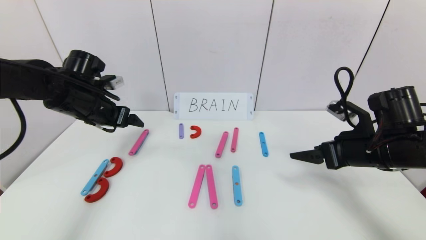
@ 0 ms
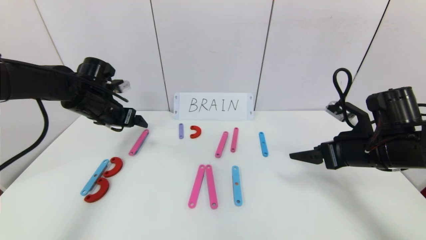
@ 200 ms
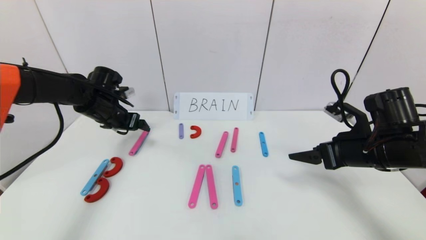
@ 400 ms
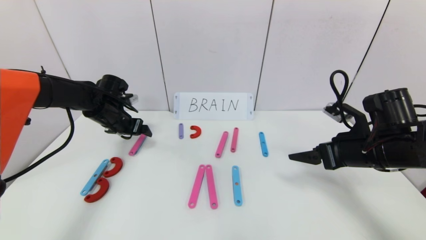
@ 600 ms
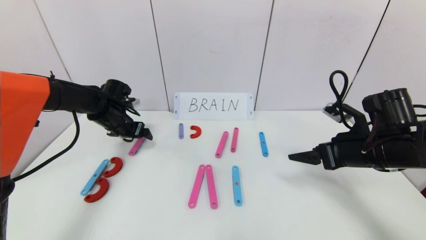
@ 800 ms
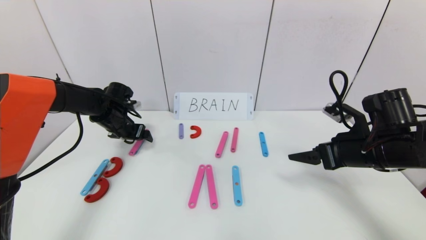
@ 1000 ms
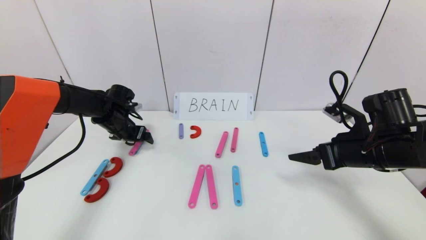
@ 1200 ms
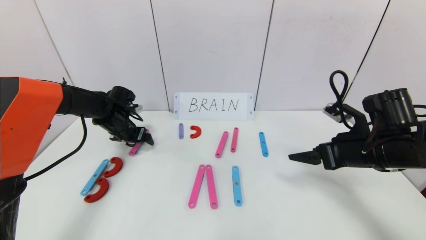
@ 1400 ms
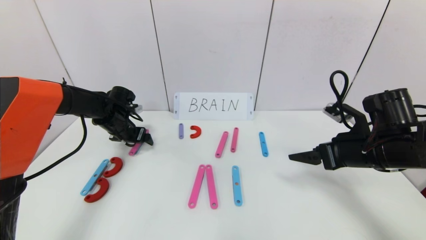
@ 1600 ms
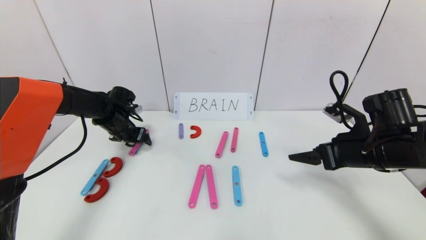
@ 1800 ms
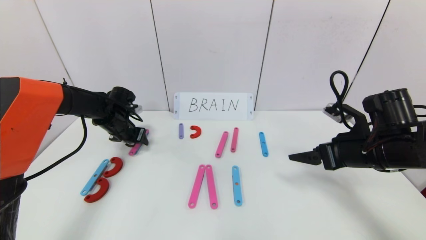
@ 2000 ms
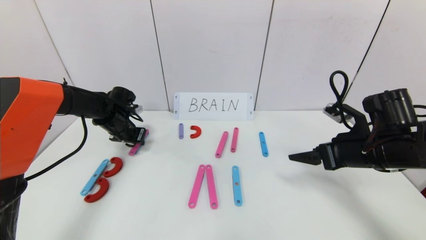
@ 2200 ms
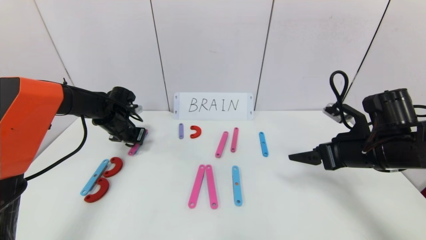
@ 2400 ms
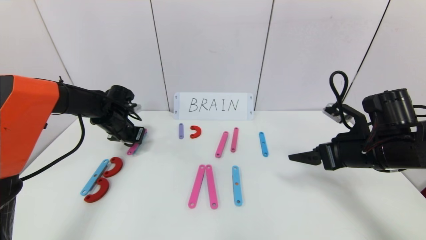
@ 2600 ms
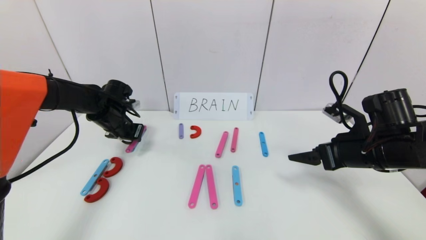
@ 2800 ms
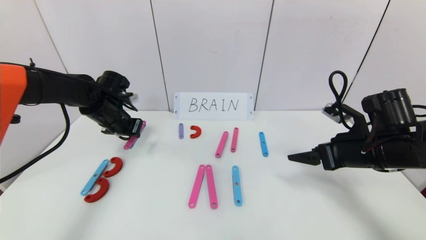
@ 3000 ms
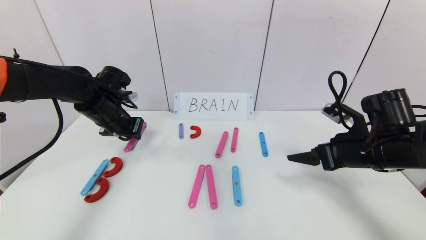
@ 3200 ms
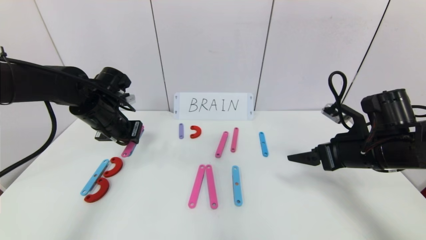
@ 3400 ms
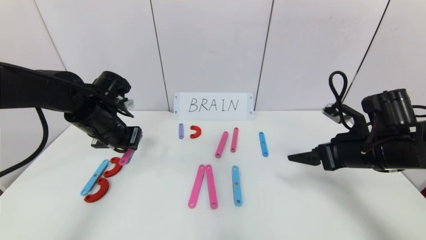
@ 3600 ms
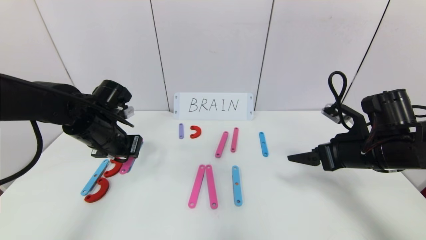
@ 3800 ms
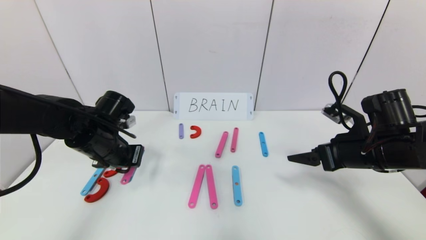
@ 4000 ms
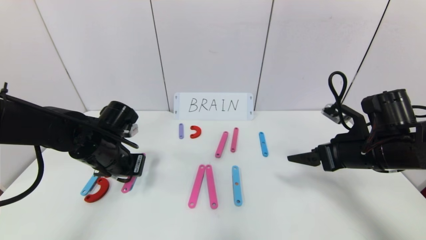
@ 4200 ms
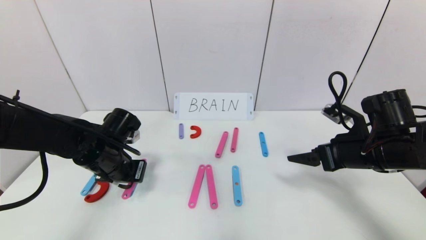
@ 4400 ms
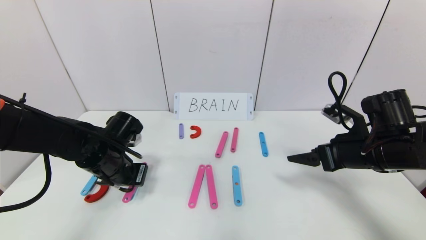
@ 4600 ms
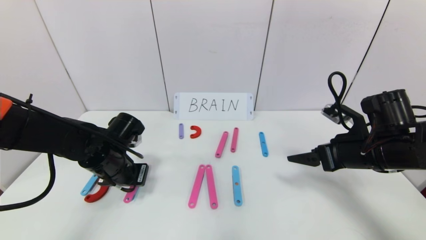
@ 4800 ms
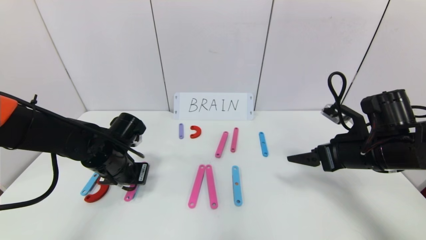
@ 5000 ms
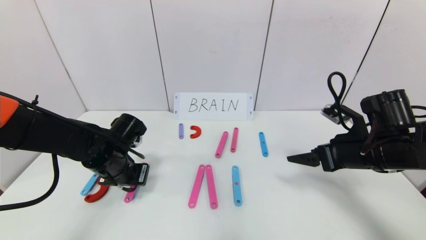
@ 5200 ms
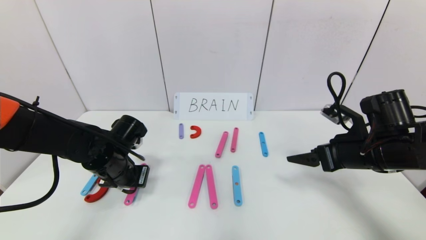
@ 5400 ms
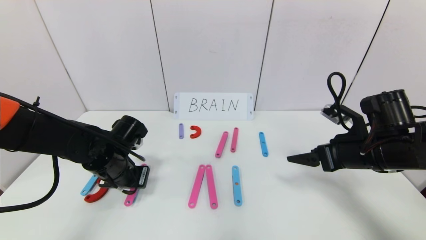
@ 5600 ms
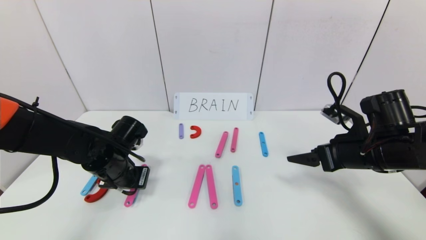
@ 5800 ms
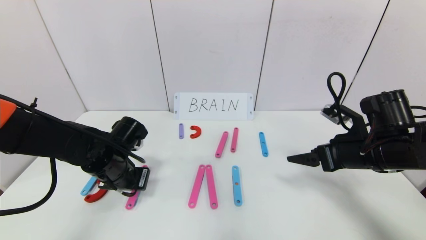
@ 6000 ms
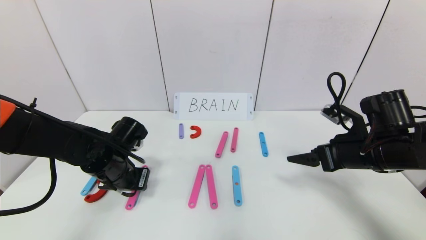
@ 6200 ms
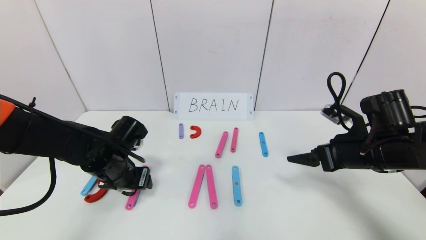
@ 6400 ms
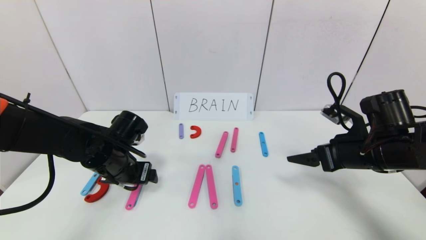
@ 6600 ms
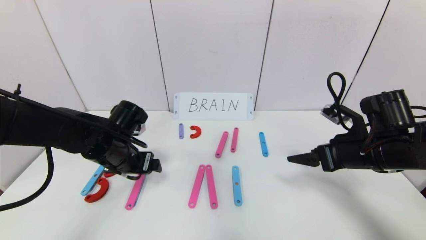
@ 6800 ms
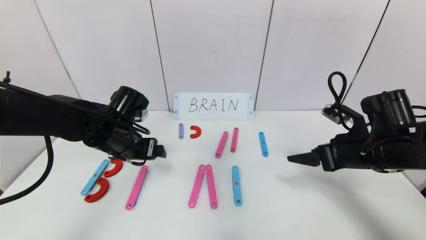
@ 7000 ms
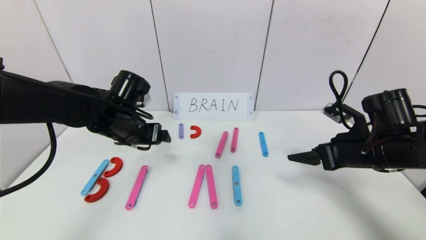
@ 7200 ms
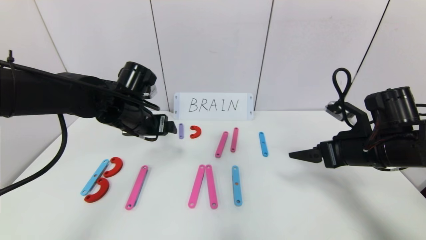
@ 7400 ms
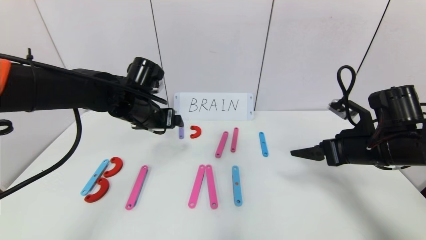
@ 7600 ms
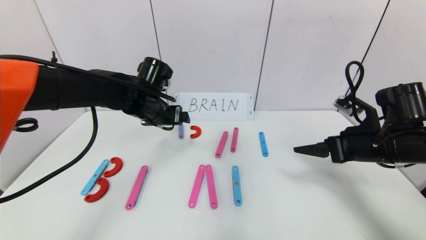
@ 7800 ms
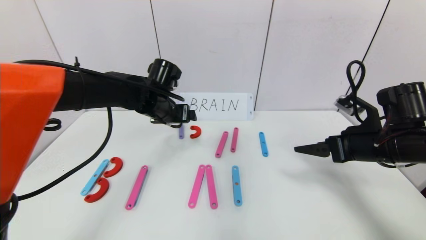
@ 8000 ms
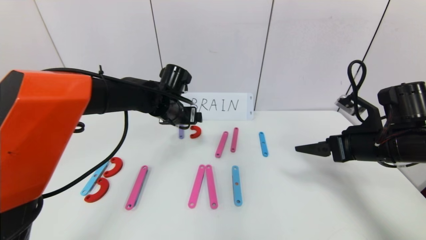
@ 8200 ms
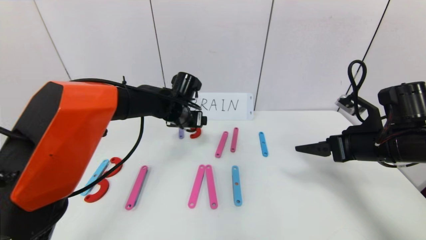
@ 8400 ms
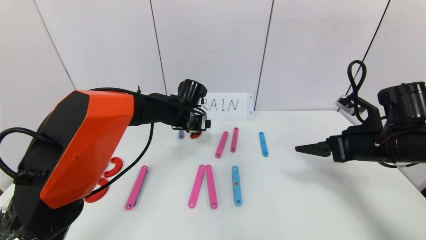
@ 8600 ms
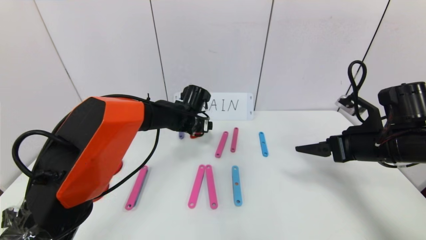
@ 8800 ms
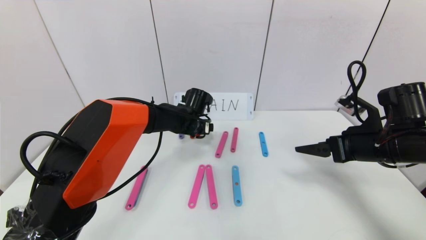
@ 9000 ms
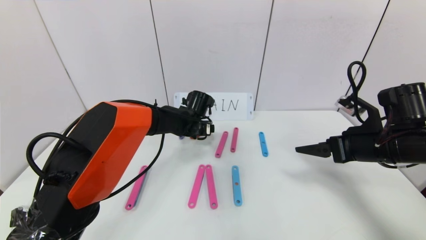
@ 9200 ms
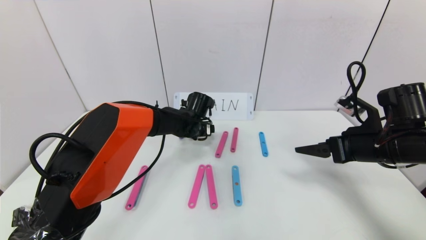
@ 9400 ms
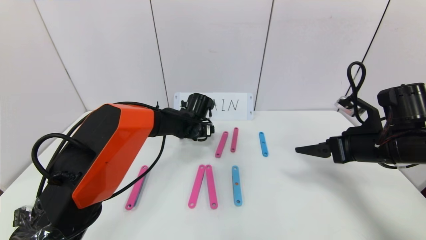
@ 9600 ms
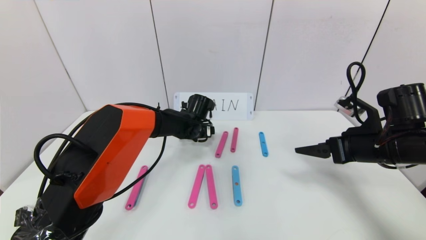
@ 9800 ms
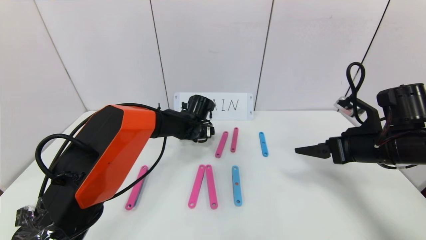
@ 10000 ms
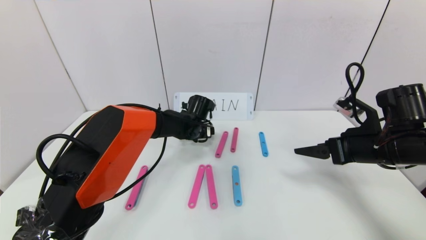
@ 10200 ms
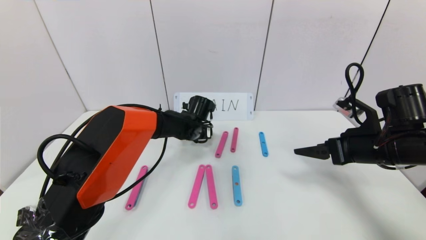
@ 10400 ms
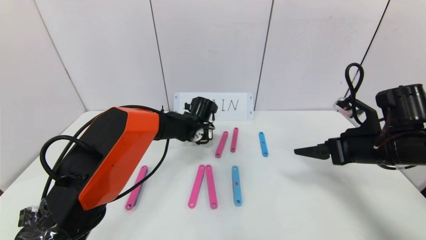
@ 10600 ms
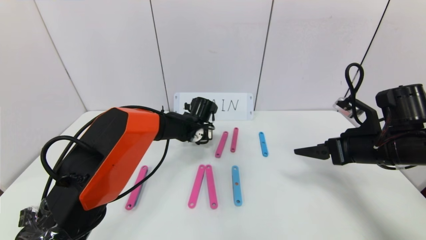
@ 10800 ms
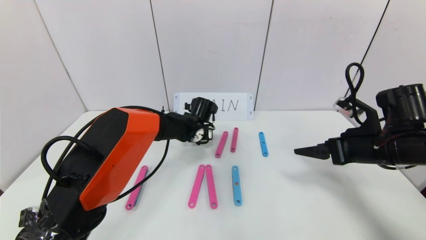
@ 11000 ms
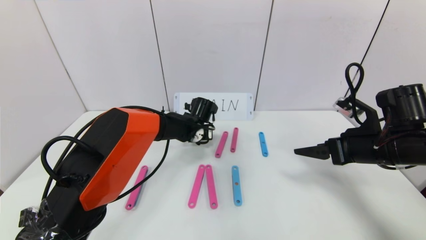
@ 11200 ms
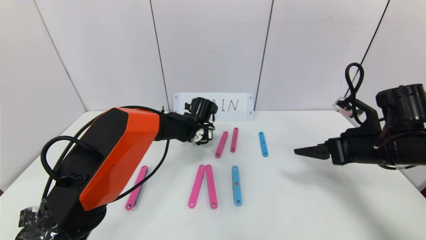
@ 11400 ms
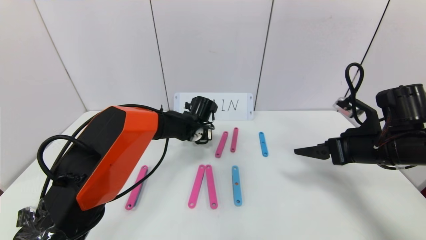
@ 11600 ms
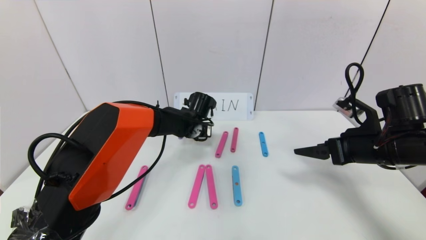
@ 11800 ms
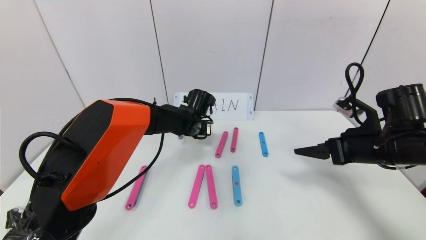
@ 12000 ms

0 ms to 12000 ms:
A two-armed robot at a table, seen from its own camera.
Task of the whole recording: rearrange the word baai as brain.
0 ms to 1600 ms: The left gripper heads downward and forward, covering some 15 cm.
1600 ms to 3000 ms: The left gripper is displaced upward by approximately 5 cm, and closes.
3000 ms to 4400 ms: The left gripper shifts approximately 10 cm backward.
4400 ms to 6000 ms: The grippers stay close to where they were, moving slightly.
6000 ms to 7600 ms: The left gripper heads upward and forward, covering approximately 10 cm, and opens up.
7600 ms to 9000 ms: The left gripper is displaced to the right, downward and forward by some 15 cm.
9000 ms to 10400 ms: There are only small adjustments of the grippers.
10400 ms to 12000 ms: The left gripper closes its fingers.

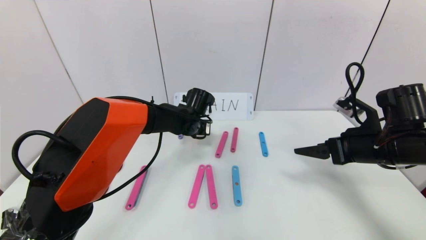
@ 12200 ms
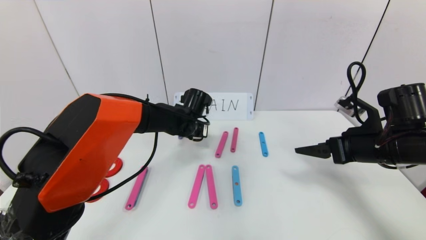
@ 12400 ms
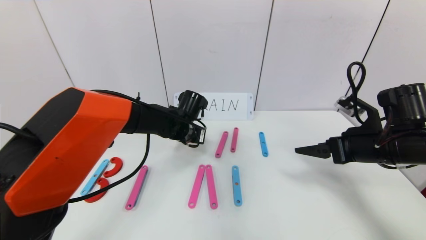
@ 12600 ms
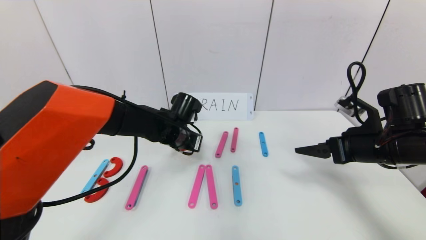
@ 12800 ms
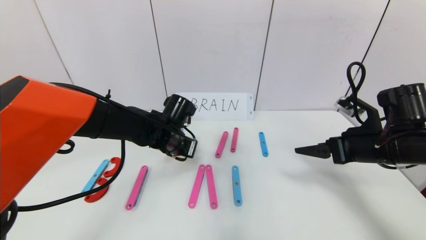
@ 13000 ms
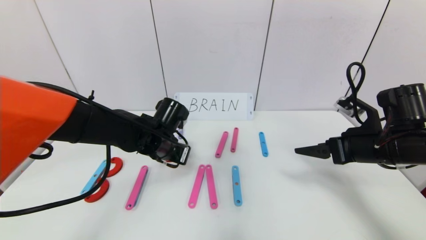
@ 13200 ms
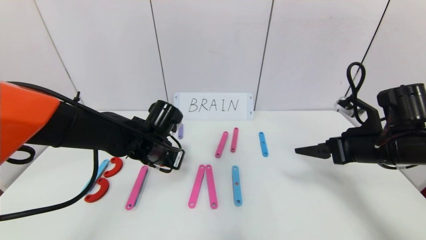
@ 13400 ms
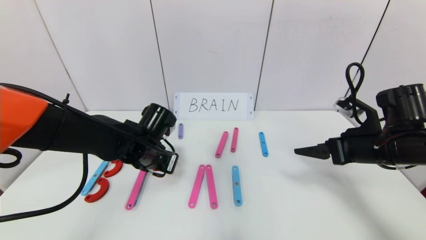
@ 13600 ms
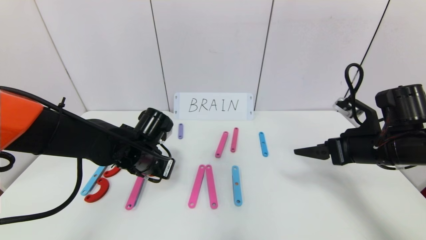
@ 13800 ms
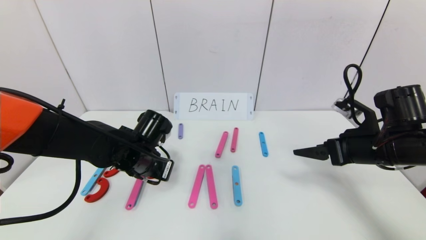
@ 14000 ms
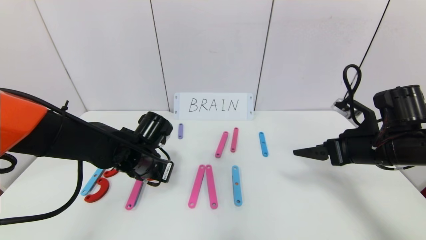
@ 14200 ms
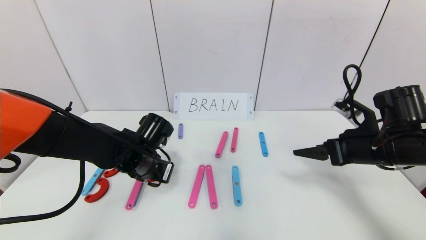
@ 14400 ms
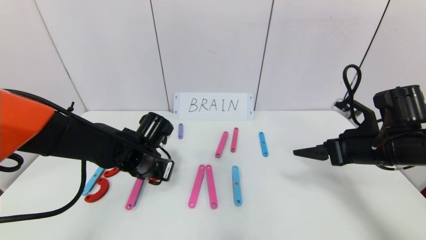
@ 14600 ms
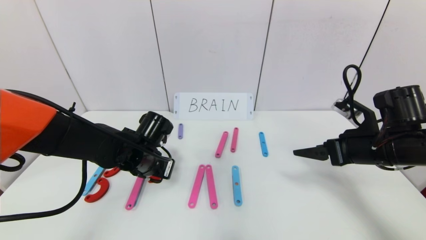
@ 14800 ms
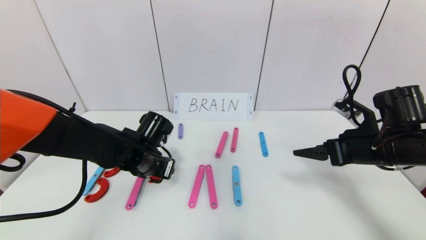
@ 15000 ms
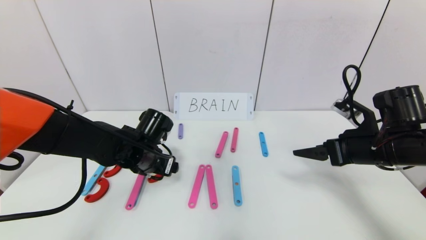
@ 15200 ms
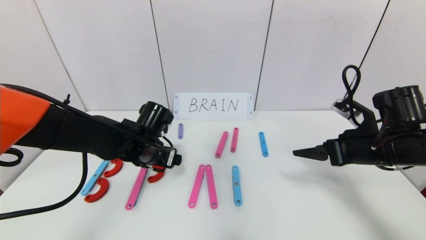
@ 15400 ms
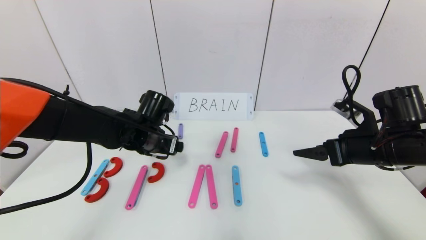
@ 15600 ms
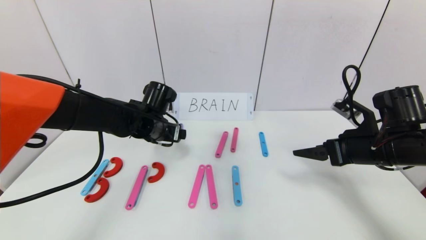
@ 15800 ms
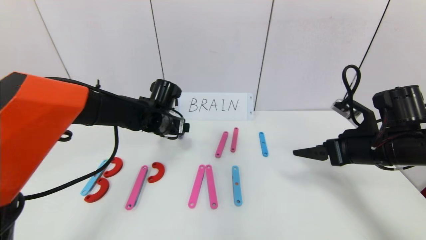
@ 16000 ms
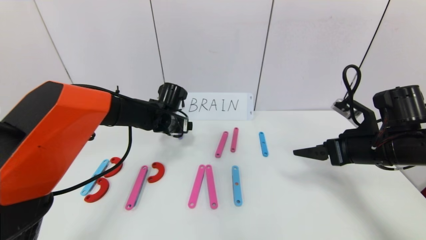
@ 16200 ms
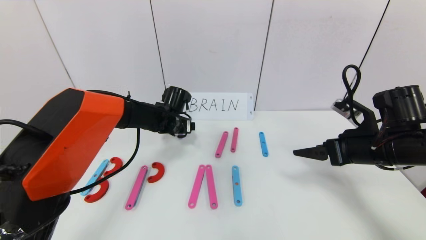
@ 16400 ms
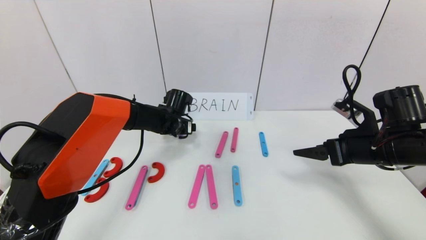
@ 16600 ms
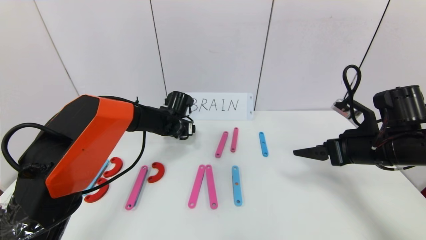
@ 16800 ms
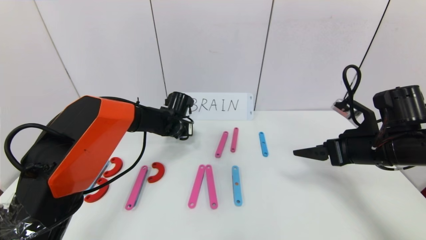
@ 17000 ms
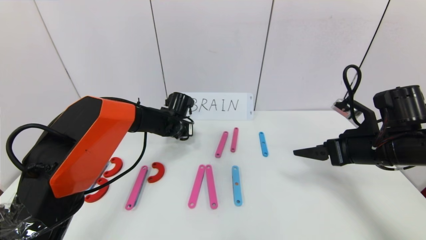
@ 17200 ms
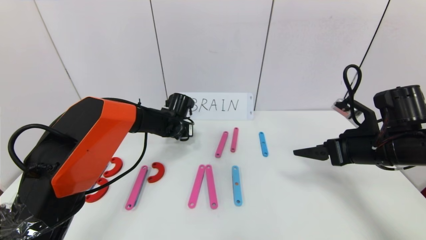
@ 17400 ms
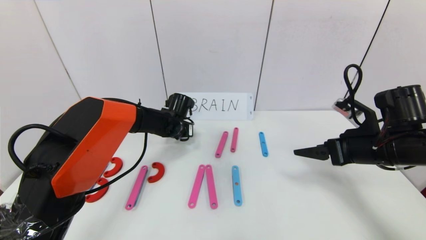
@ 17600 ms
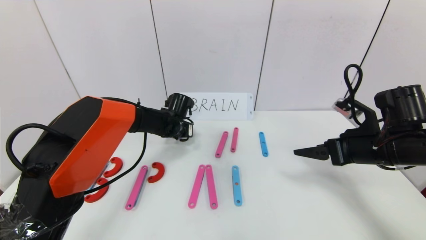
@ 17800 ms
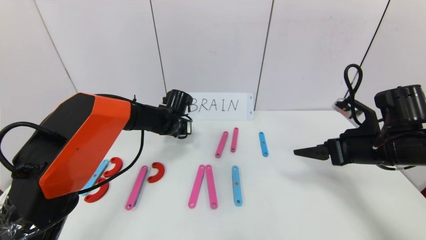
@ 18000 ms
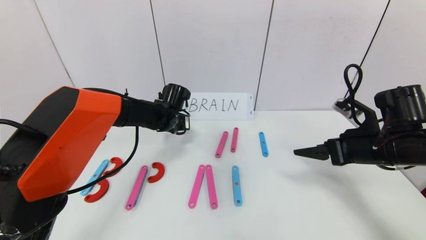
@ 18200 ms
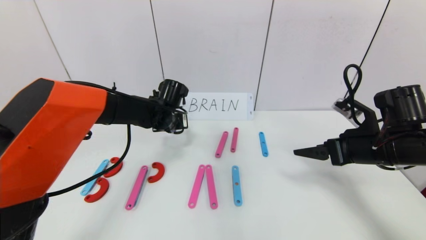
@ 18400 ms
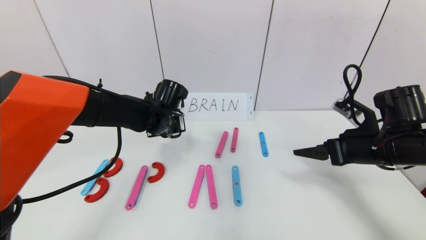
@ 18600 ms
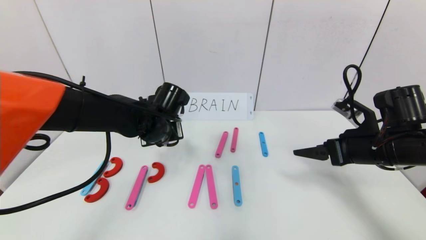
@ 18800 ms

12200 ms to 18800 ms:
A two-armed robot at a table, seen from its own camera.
Task of the whole recording: rearrange the word baai as brain.
12200 ms to 13800 ms: The left gripper travels backward and to the left by about 15 cm.
13800 ms to 15400 ms: The left gripper opens its fingers.
15400 ms to 17200 ms: The left gripper shifts roughly 15 cm forward, and closes.
17200 ms to 18800 ms: The left gripper moves backward and upward, roughly 15 cm.
